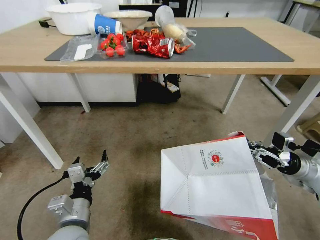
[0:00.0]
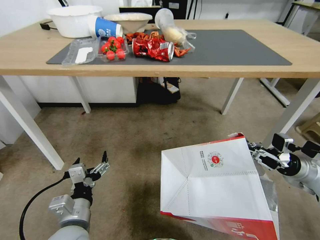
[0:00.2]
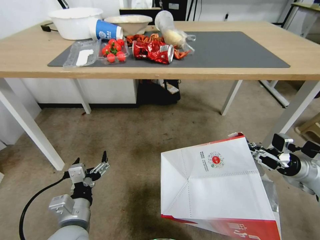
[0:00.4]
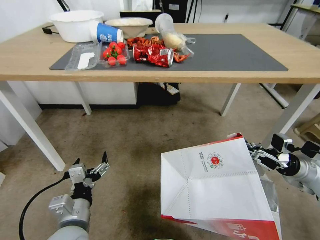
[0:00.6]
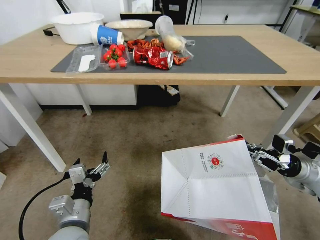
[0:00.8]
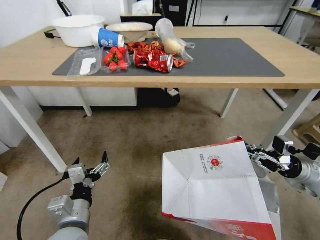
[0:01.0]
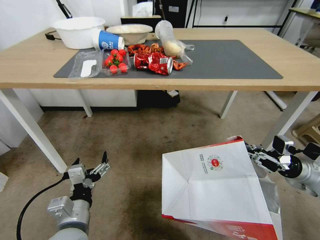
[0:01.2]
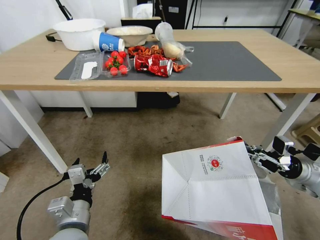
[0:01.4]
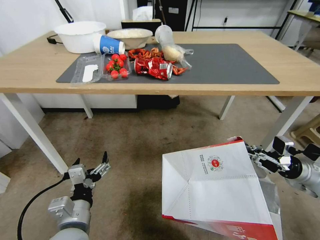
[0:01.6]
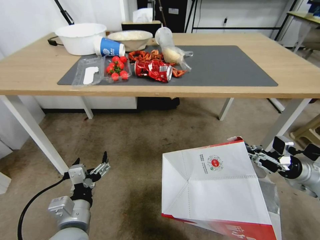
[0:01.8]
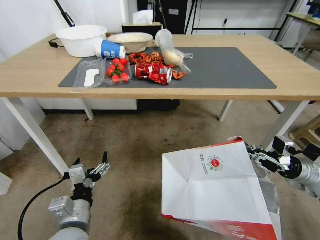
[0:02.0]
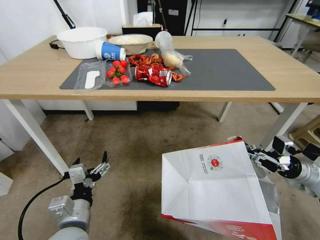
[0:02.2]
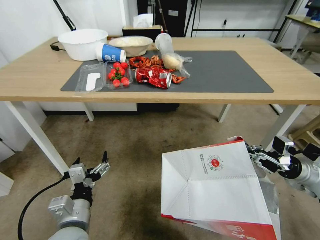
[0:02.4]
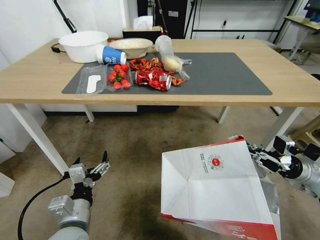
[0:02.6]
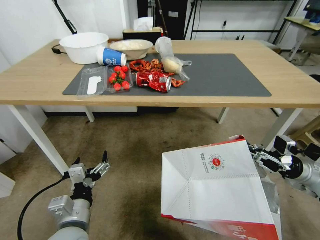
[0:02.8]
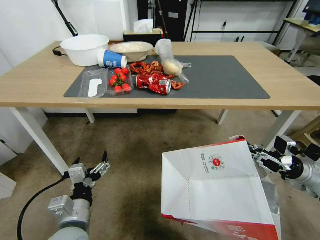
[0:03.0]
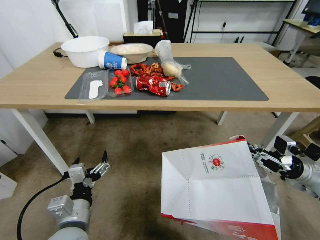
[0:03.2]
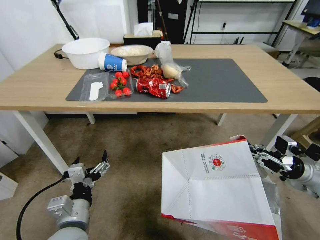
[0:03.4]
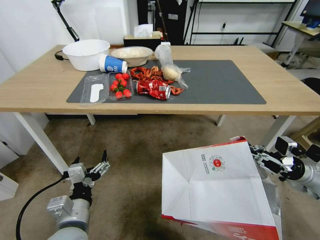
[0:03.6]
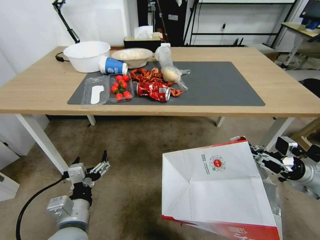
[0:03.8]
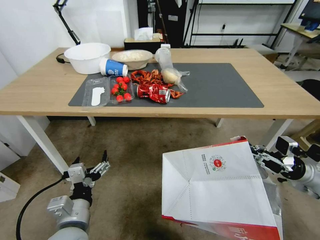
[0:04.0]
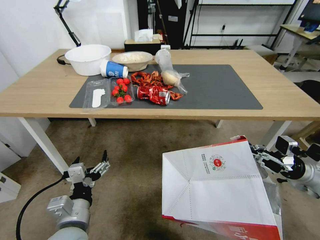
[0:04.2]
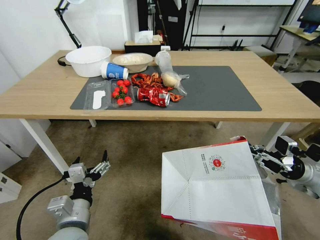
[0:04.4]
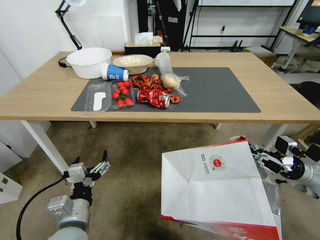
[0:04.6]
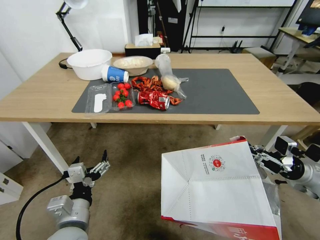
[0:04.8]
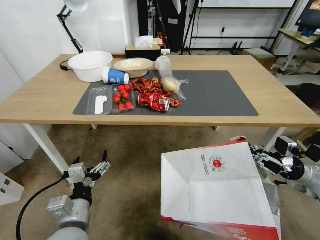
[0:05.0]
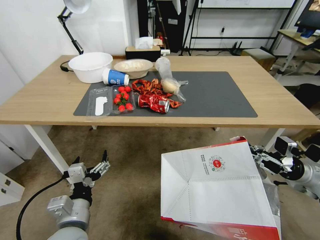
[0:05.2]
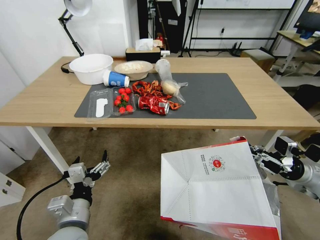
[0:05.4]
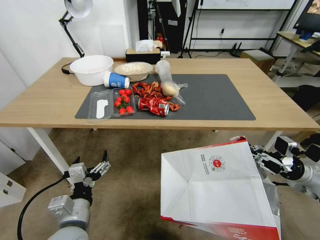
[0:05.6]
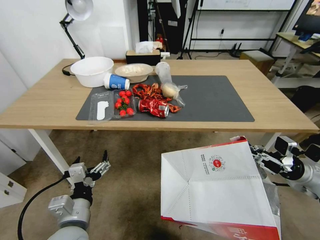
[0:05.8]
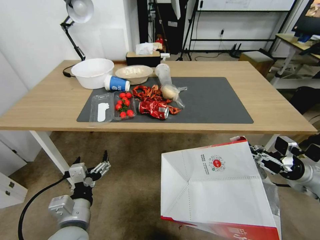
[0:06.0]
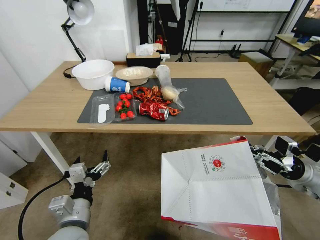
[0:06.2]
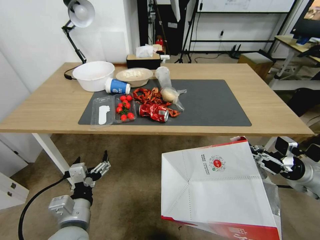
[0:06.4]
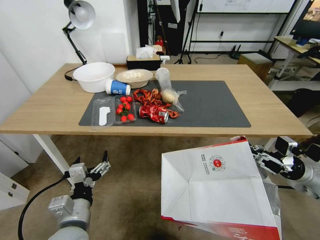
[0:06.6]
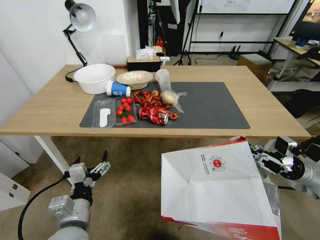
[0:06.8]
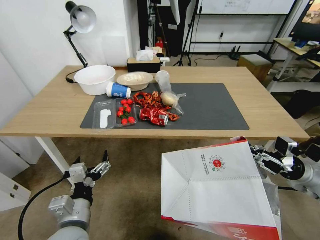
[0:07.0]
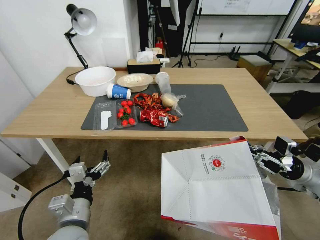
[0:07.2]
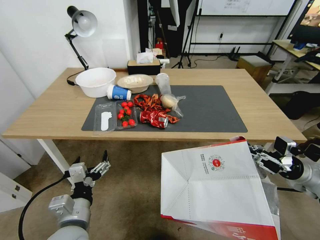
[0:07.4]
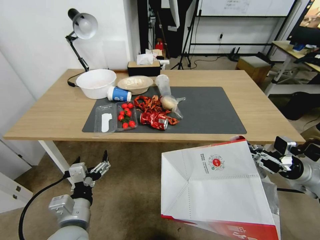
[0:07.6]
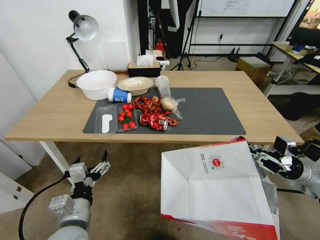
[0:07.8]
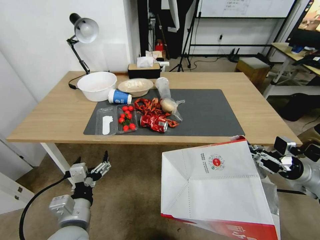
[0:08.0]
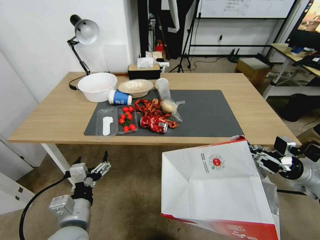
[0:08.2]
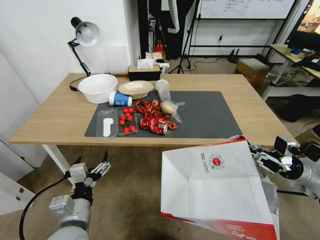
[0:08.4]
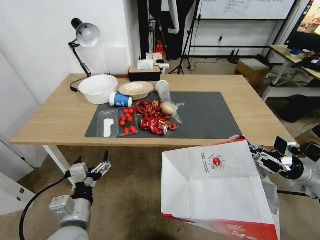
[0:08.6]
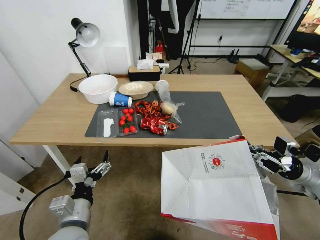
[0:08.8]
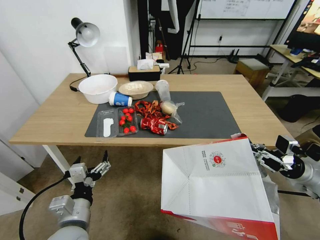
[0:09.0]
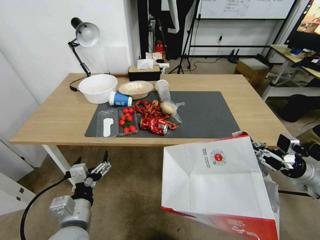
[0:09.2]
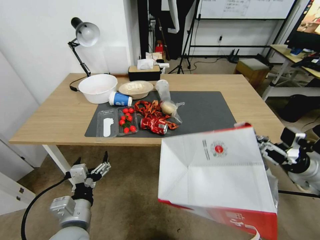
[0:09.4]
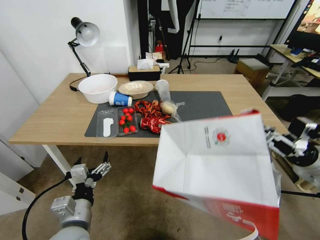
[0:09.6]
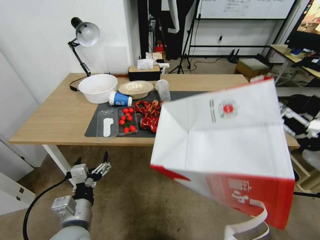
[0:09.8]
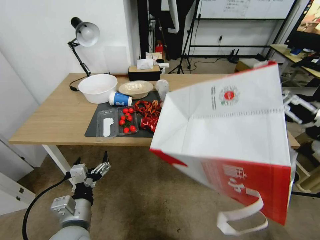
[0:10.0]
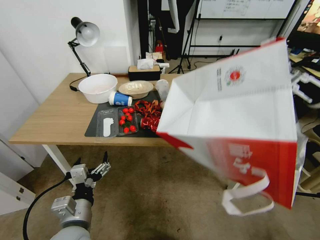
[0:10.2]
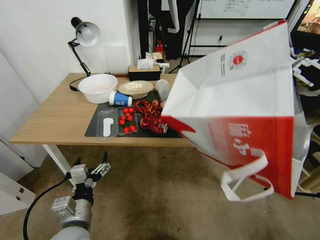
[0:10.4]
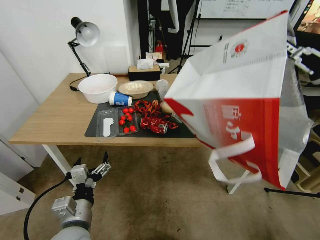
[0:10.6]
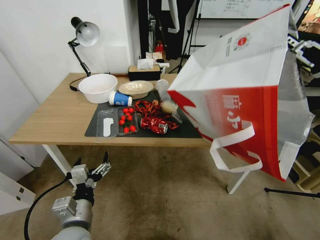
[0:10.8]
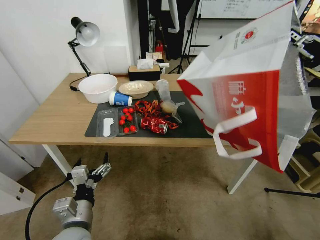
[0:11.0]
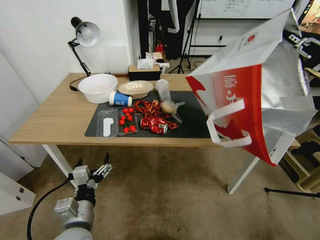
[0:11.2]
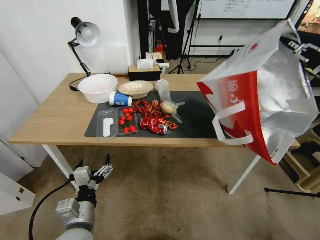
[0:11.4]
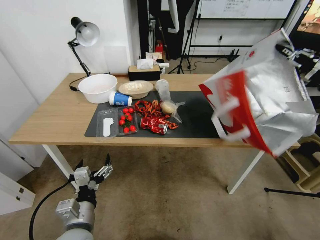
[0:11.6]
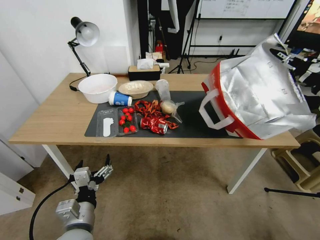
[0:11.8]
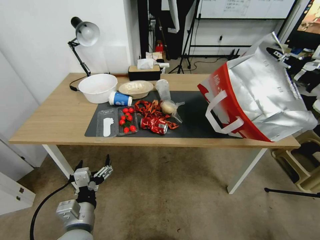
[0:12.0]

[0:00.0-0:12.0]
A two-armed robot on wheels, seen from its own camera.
Task of the whole recording: Pick up the food delivery bag from the floor and place it on the table.
0:09.0 to 0:10.4: The right gripper shifts approximately 20 cm upward.
0:10.4 to 0:12.0: The right gripper heads forward, covering some 5 cm.

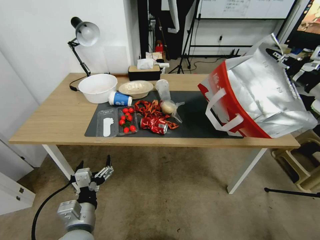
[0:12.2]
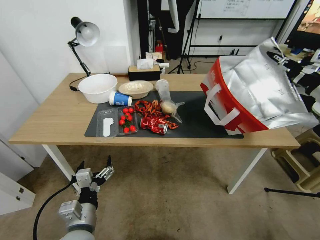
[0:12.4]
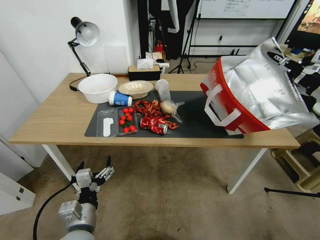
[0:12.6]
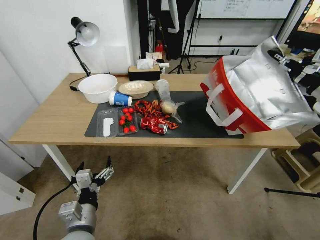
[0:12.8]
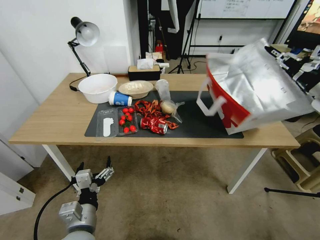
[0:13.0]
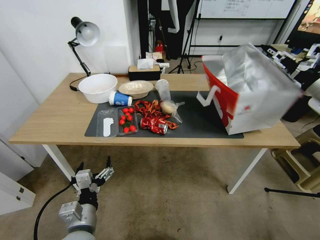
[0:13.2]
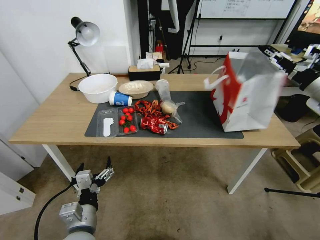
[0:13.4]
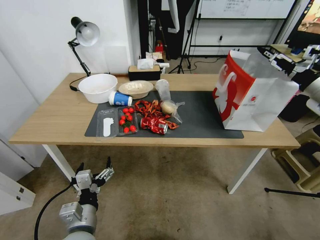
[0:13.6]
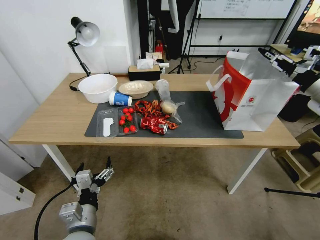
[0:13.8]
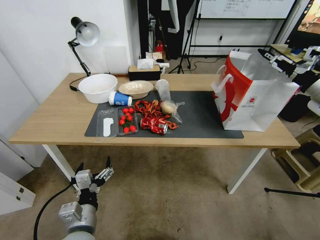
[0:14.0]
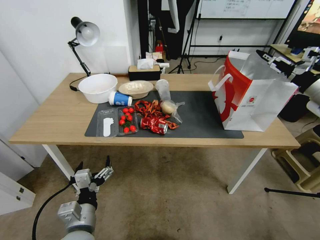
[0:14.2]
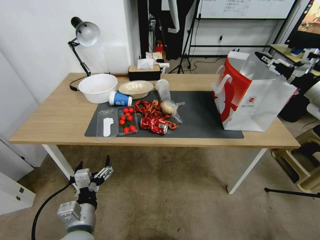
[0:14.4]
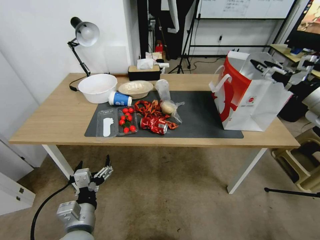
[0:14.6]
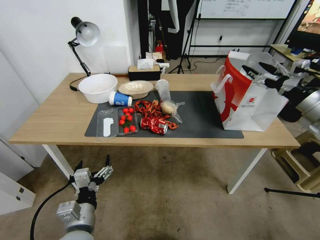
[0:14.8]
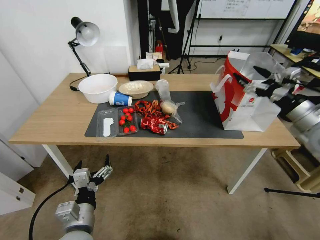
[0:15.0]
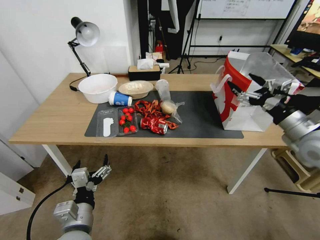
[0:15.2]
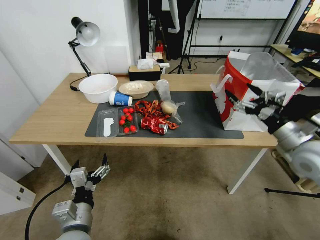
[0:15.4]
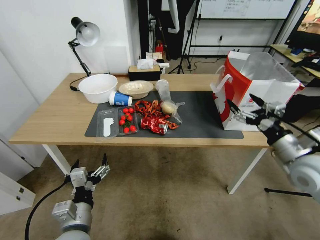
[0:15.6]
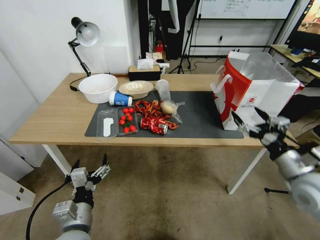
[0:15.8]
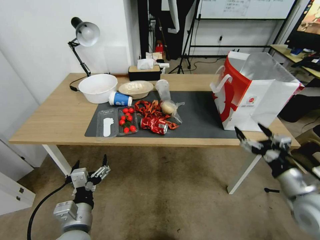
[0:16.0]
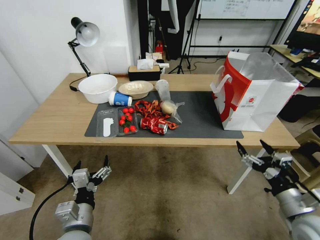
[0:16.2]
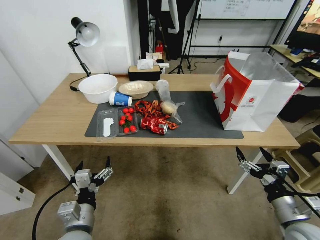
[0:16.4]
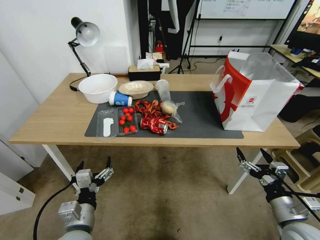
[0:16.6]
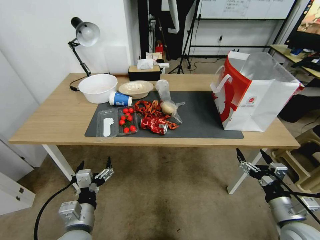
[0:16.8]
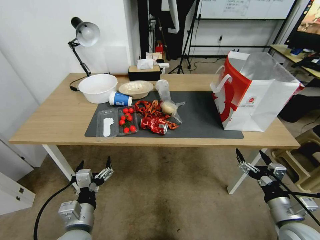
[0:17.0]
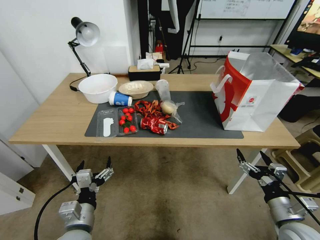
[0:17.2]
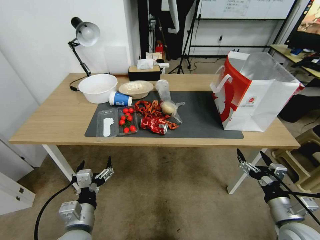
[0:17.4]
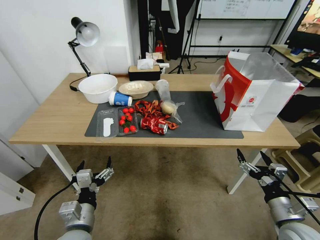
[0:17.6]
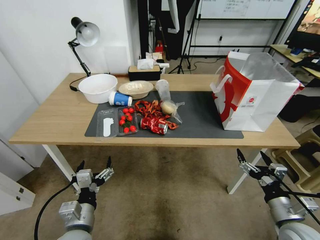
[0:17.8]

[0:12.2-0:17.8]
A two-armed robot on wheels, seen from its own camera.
Task of the whole recording: Pick up the food delivery bag from the floor and place it on the table.
0:12.2 to 0:13.6: The right gripper opens up.
0:13.6 to 0:15.0: The right gripper is displaced to the left and backward by some 10 cm.
0:15.0 to 0:16.4: The right gripper travels downward and backward by about 25 cm.
0:16.4 to 0:17.8: The grippers move only a little.

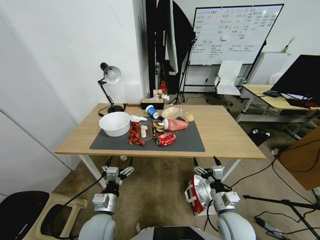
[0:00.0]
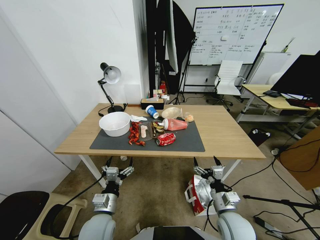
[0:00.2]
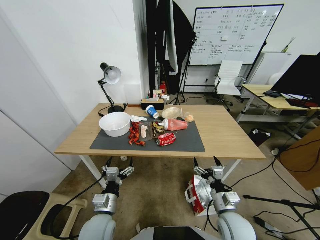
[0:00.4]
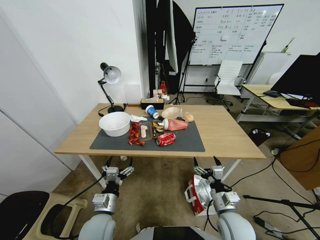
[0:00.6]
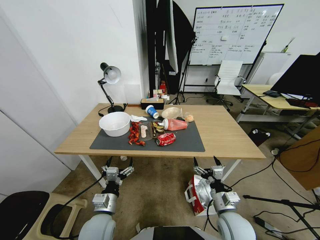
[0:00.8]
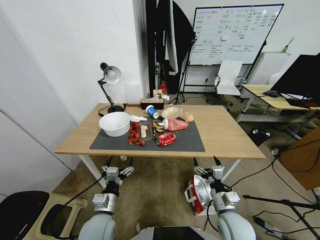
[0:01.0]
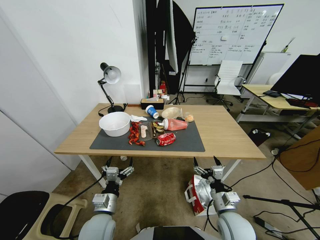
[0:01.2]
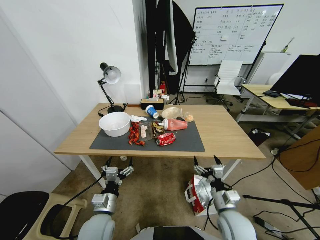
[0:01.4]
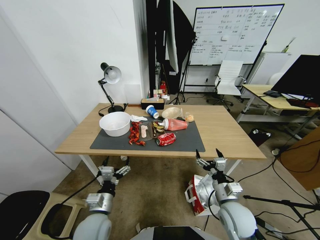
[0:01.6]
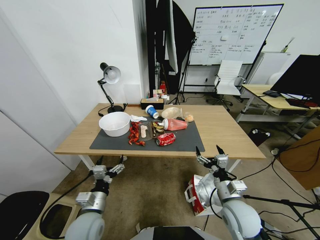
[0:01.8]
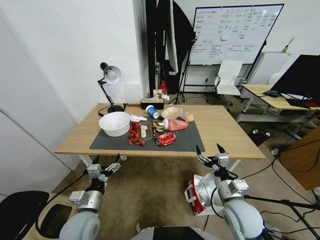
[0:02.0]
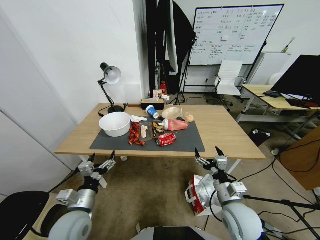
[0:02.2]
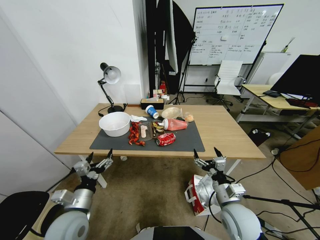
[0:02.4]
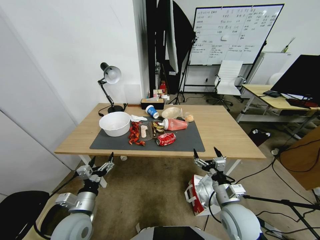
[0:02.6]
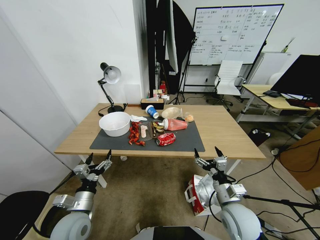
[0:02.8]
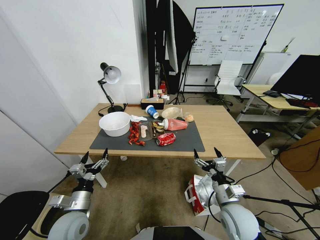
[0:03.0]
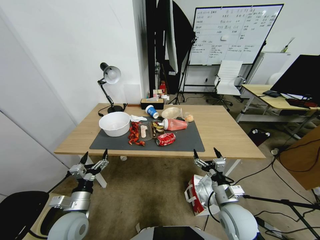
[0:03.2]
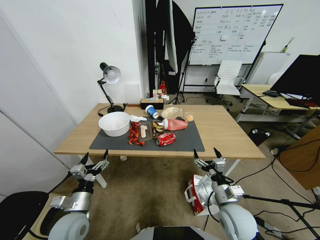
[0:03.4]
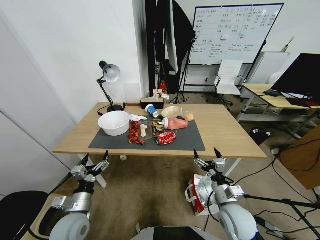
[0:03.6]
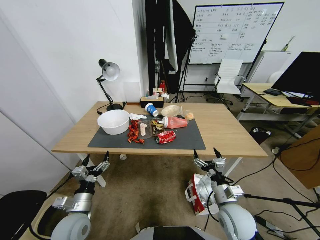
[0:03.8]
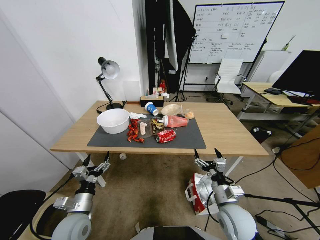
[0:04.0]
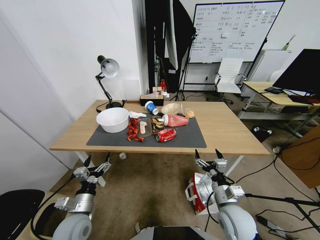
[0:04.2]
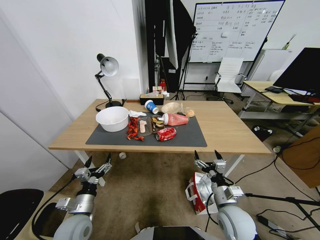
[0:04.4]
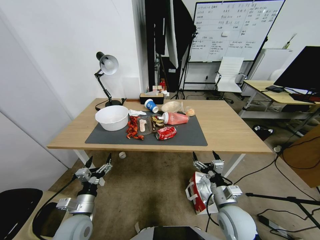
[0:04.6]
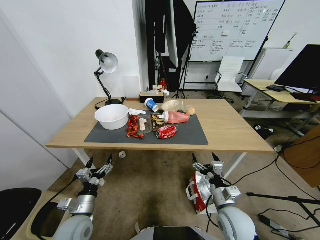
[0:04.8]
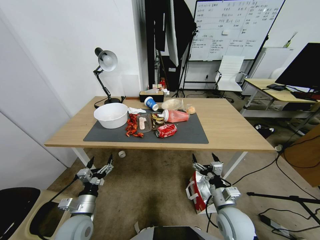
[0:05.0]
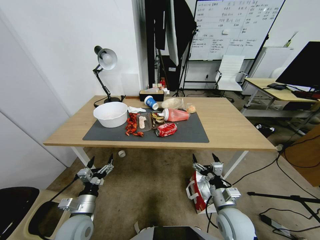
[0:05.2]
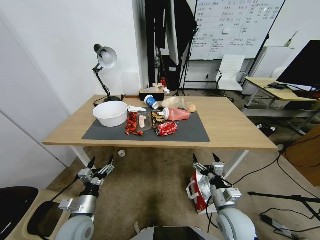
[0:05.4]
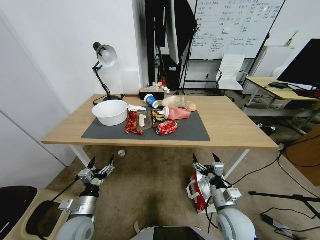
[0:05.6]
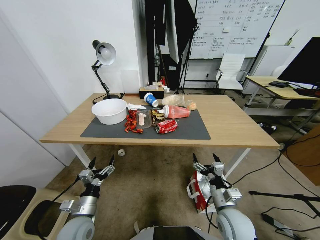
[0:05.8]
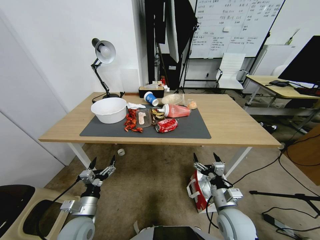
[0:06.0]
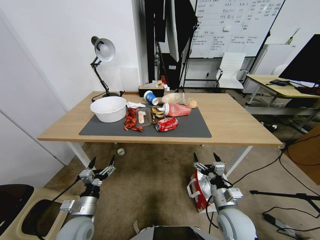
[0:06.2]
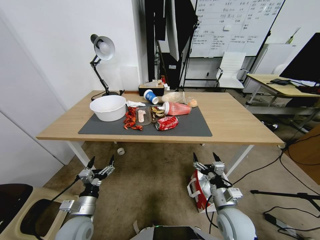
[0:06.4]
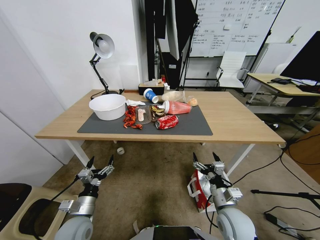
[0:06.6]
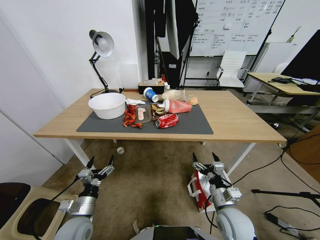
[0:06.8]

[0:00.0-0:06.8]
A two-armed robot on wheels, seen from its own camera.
Task of the whole recording: Pick up the food delivery bag from the floor and place it on the table.
0:01.4 to 0:02.8: The left gripper shifts approximately 10 cm to the left.
0:02.8 to 0:04.0: The grippers make only small movements.
